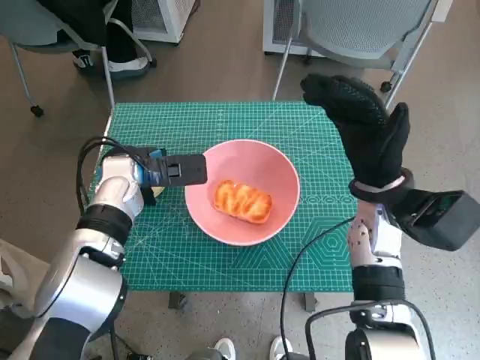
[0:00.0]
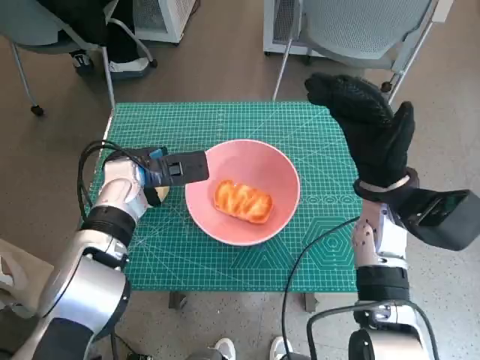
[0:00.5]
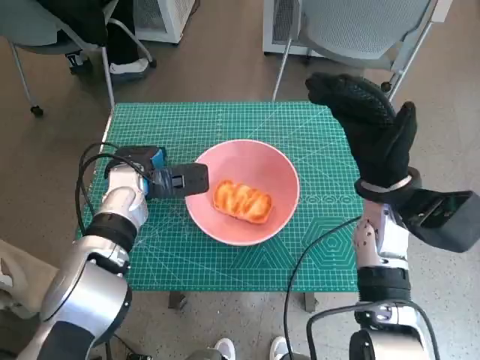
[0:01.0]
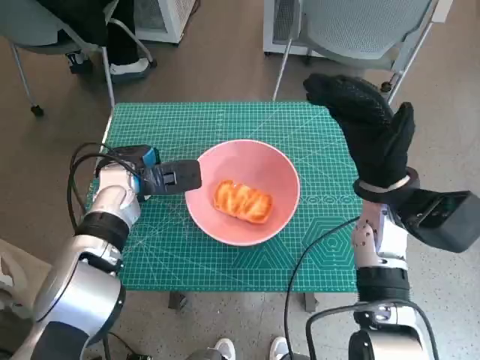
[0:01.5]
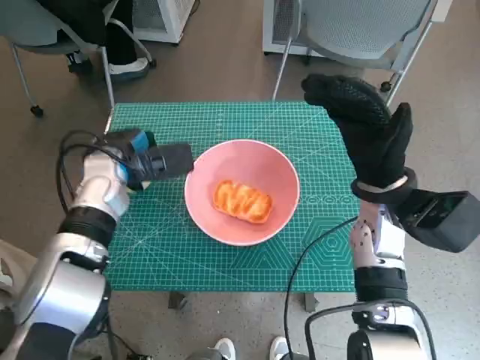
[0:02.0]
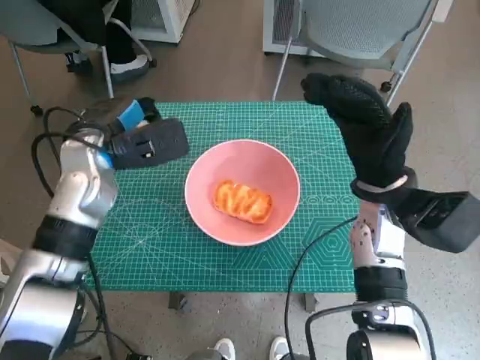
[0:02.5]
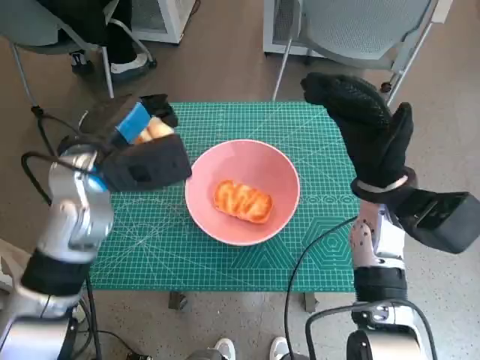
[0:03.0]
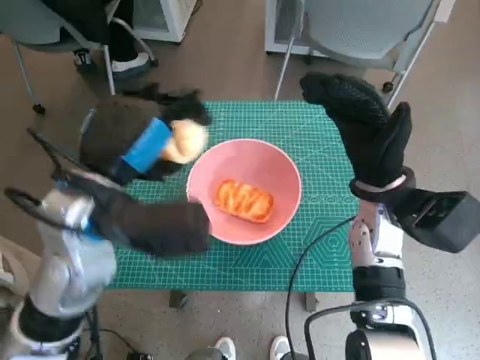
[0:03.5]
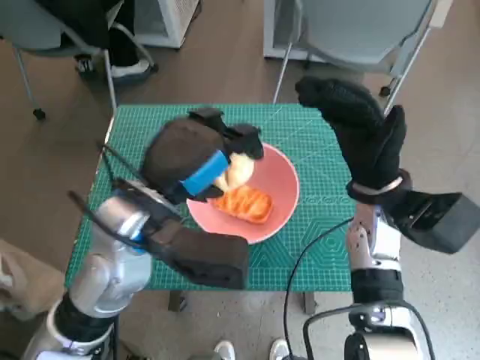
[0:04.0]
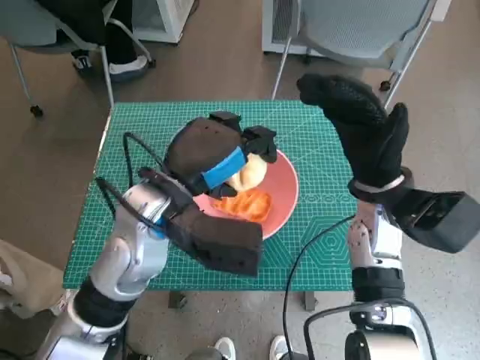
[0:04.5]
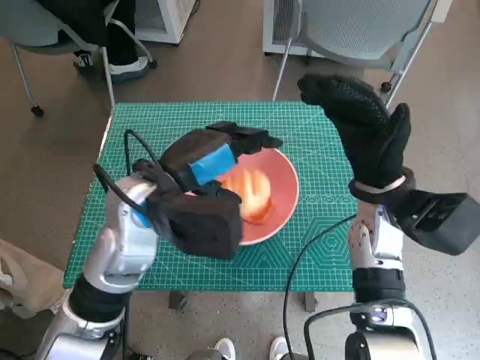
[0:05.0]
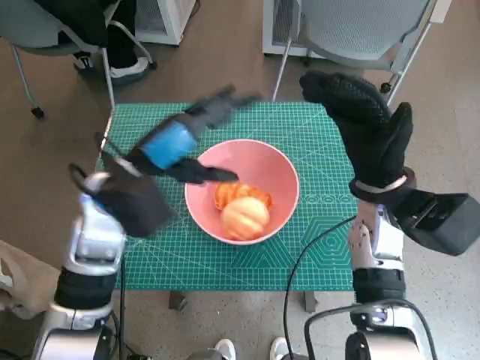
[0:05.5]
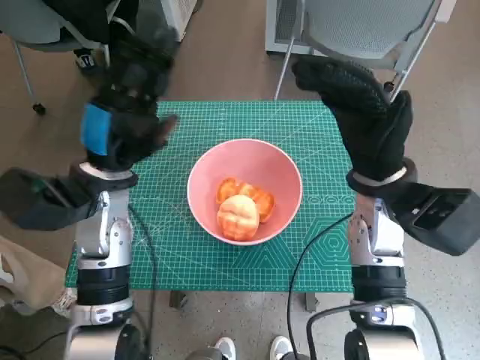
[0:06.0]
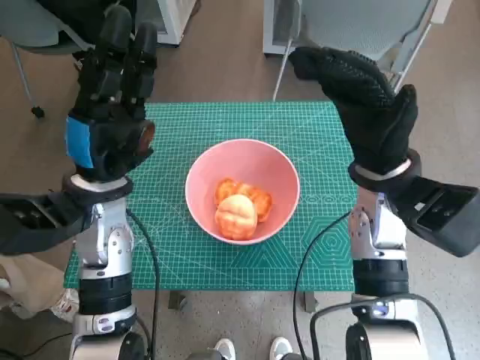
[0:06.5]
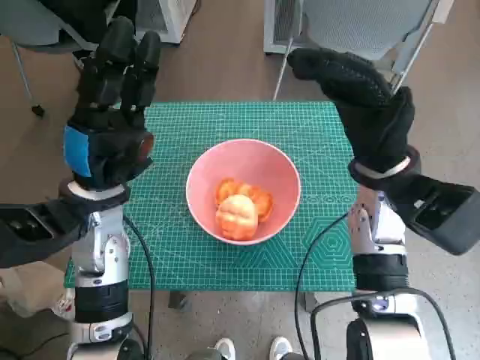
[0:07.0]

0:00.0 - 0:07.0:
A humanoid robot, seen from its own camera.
Step, 0:02.0 - 0:05.0: Place the round bread in pink bowl with left hand.
0:00.0 - 0:02.0: There are only small adjustments of the hands.
0:02.0 - 0:03.5: The left hand travels backward, upward and to the right by roughly 15 cm.
0:03.5 - 0:05.0: The left hand shifts by roughly 5 cm.
0:05.0 - 0:07.0: The left hand travels to the left by some 5 cm.

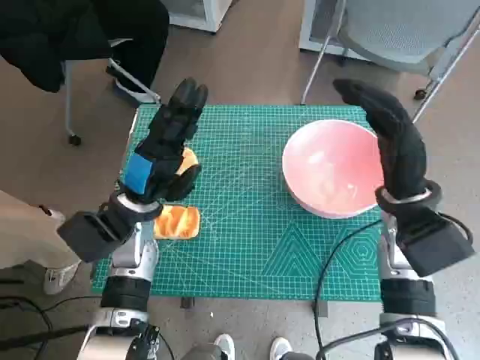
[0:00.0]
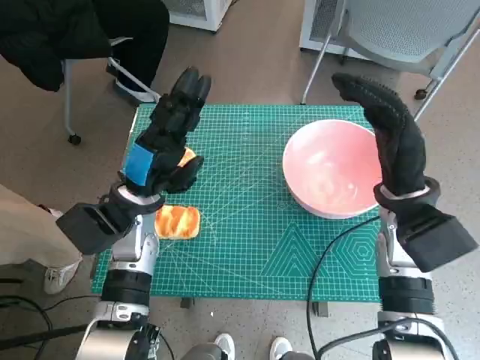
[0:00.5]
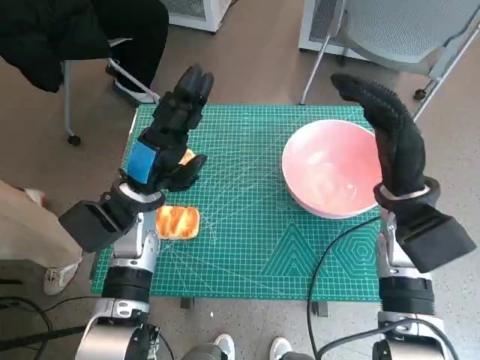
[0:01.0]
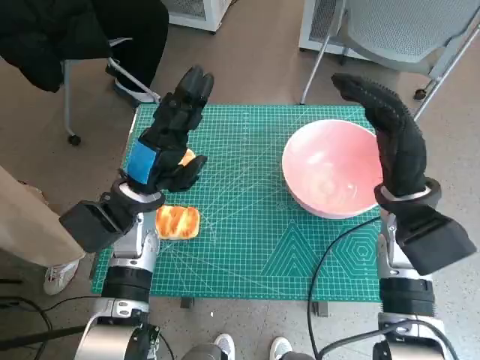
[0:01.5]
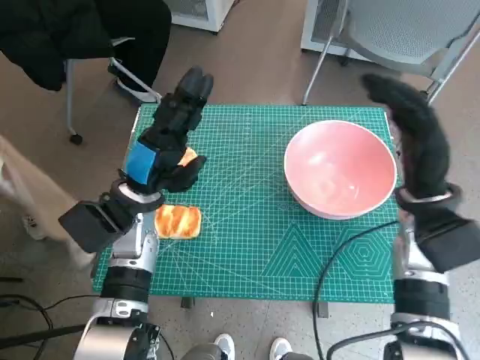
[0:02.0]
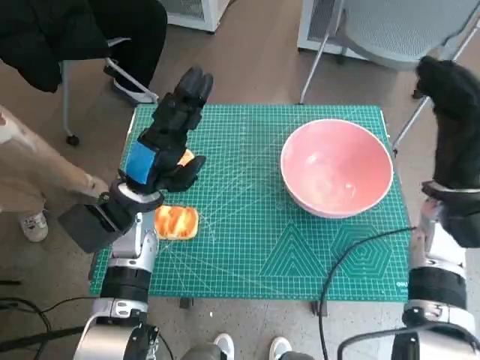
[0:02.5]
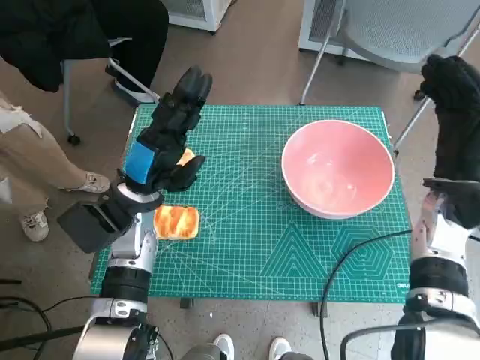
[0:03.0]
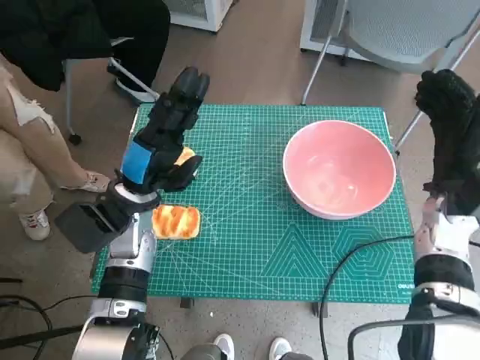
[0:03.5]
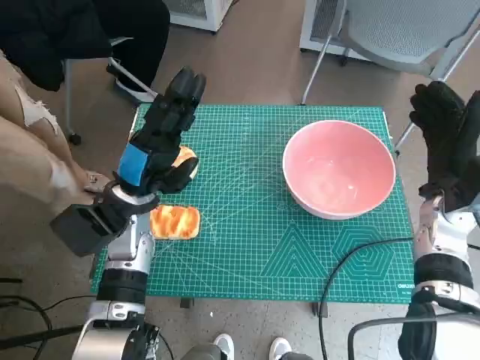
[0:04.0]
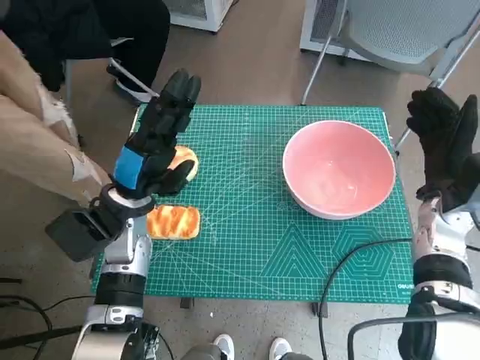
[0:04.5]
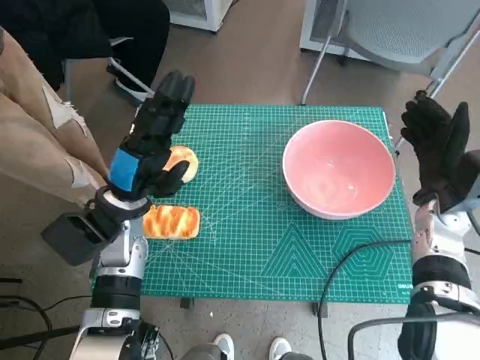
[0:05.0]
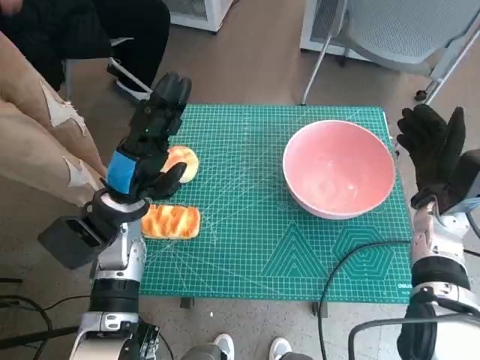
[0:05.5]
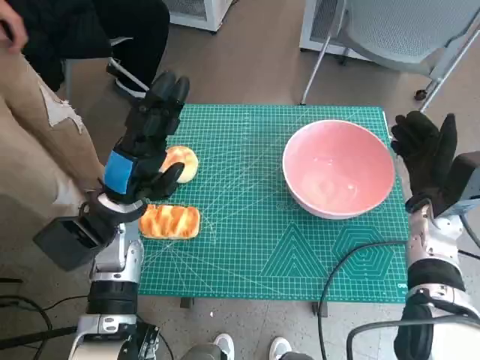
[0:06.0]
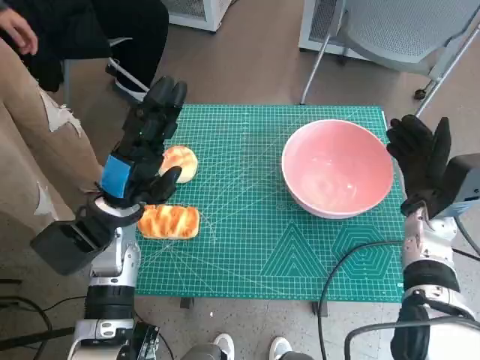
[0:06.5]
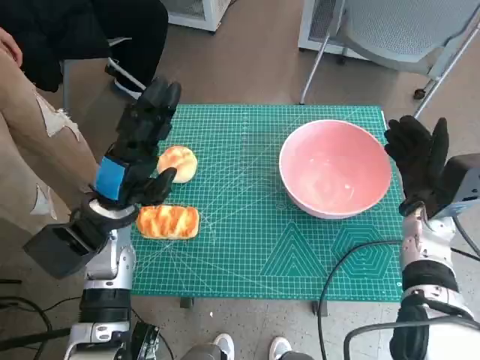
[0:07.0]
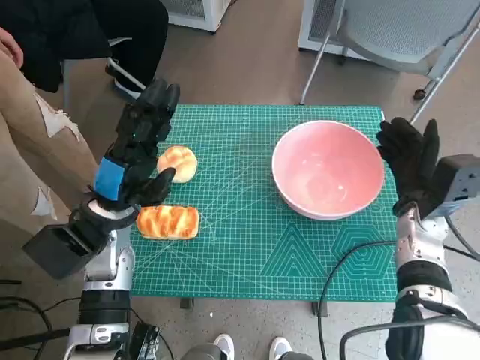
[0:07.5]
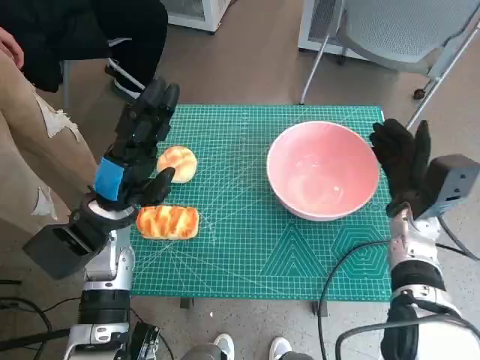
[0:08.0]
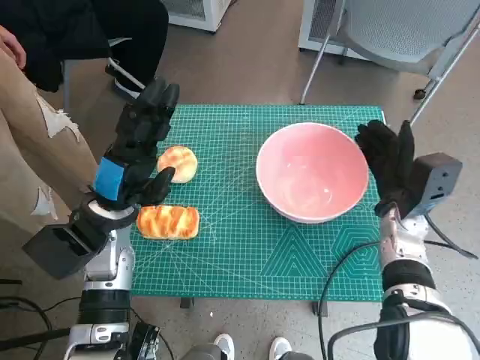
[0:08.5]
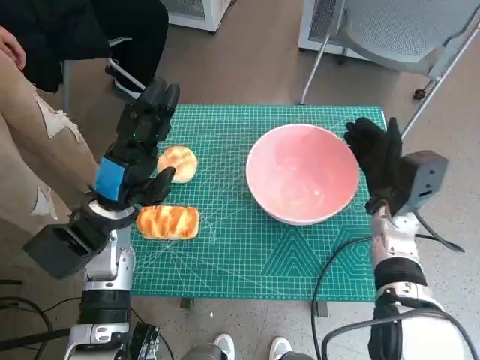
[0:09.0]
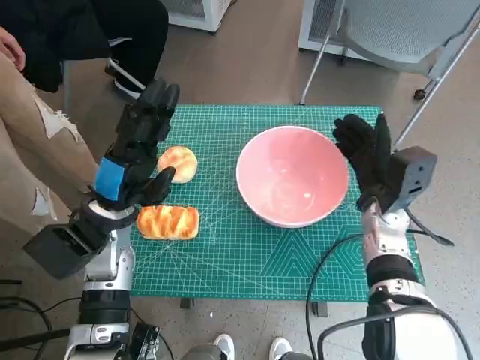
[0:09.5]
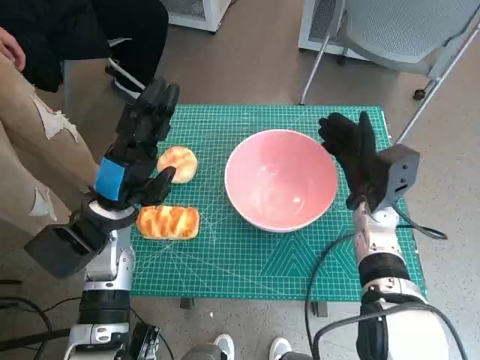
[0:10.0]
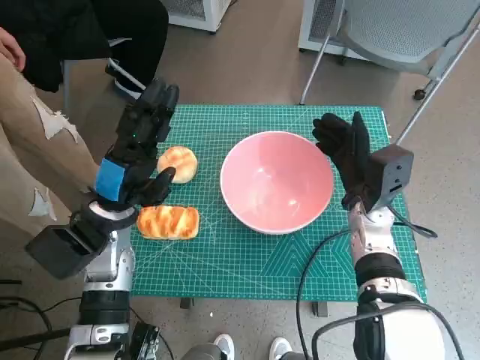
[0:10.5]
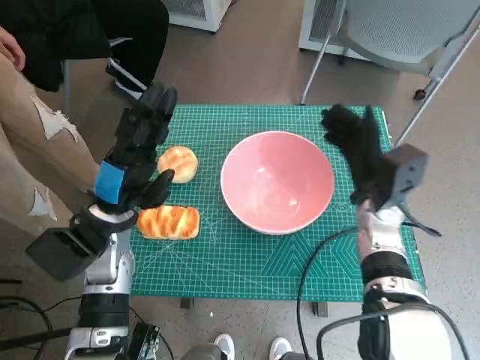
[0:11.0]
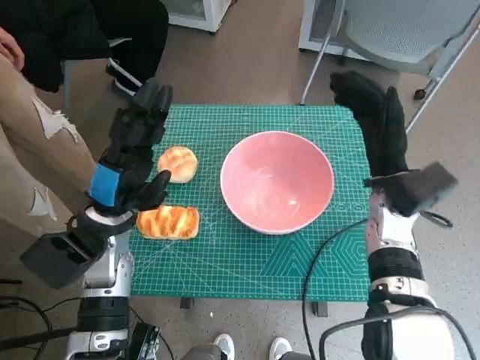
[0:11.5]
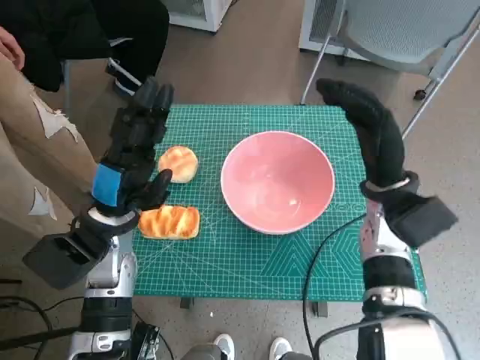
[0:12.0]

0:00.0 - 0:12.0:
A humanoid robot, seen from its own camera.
Step, 0:00.0 - 0:10.5: Move the pink bowl to the center of table with right hand.
0:02.0 - 0:04.0: The right hand moves to the right, roughly 5 cm.
0:08.0 - 0:10.0: The right hand moves to the left, about 5 cm.
0:10.0 - 0:12.0: The right hand shifts about 5 cm upward.

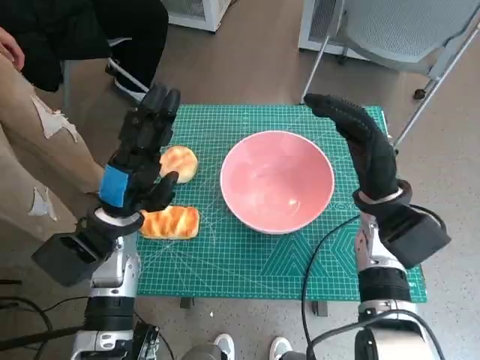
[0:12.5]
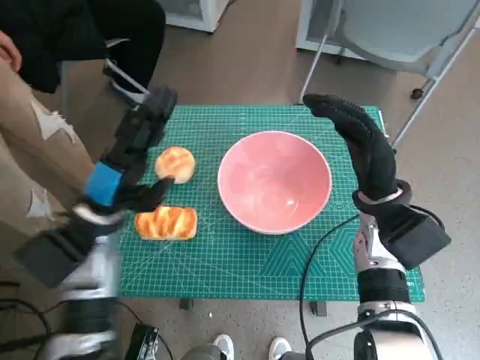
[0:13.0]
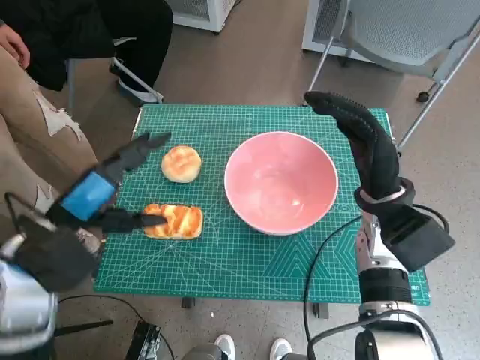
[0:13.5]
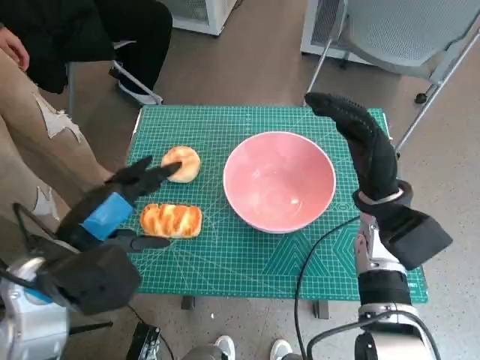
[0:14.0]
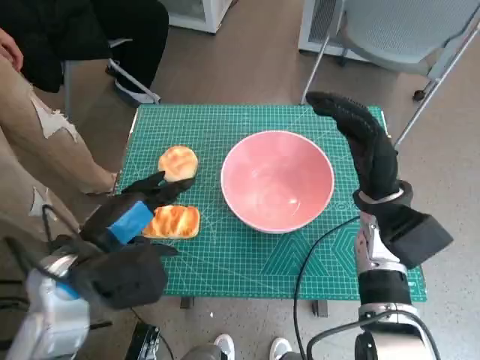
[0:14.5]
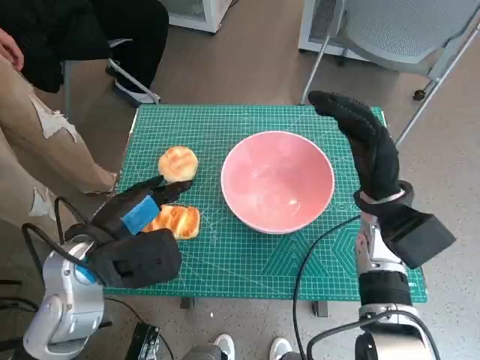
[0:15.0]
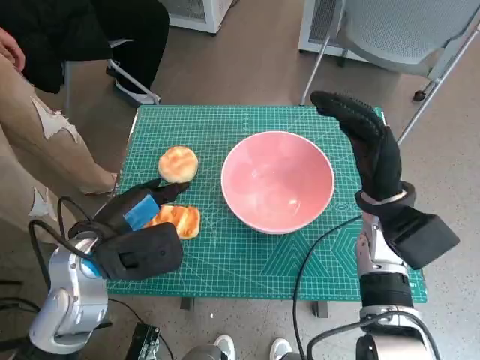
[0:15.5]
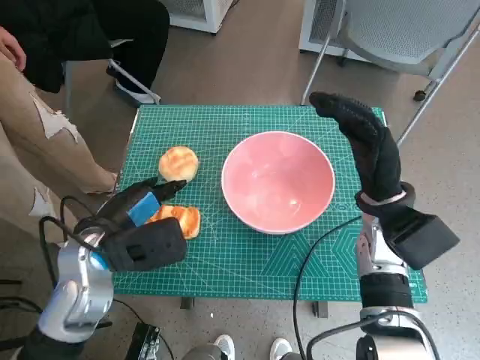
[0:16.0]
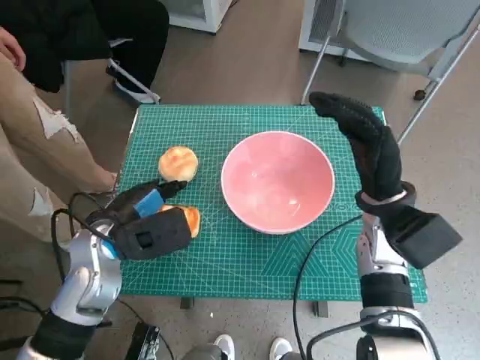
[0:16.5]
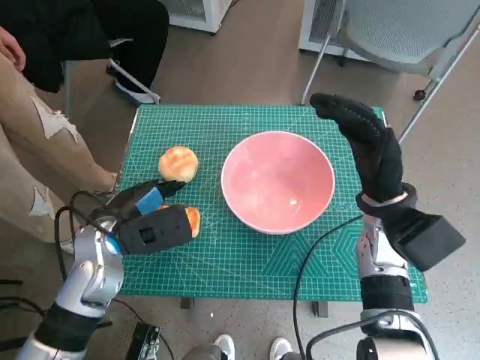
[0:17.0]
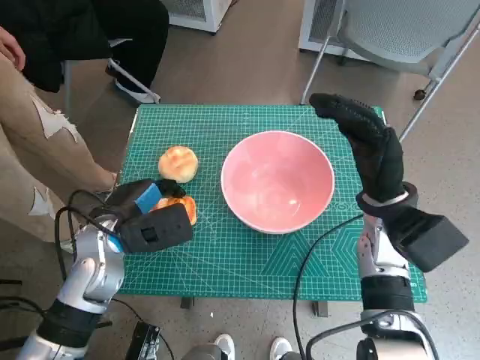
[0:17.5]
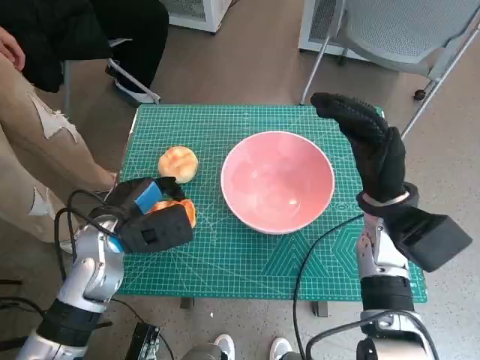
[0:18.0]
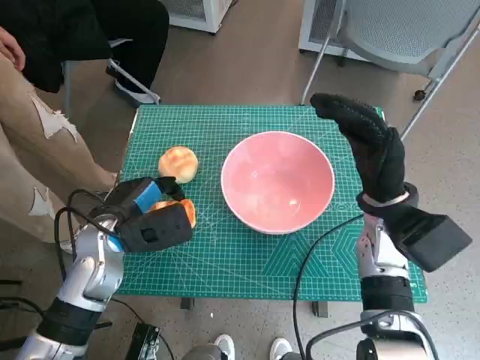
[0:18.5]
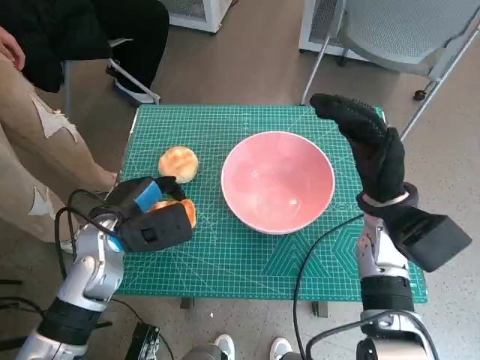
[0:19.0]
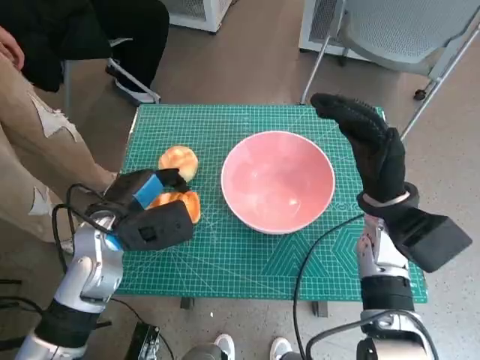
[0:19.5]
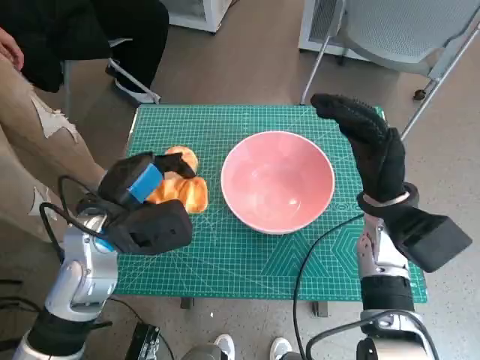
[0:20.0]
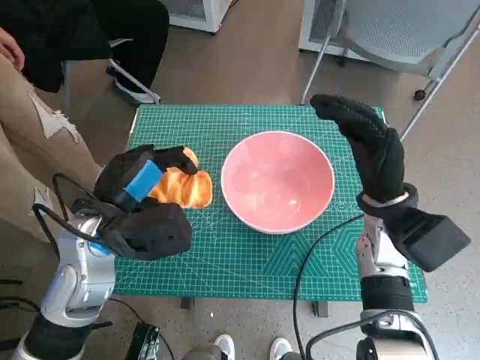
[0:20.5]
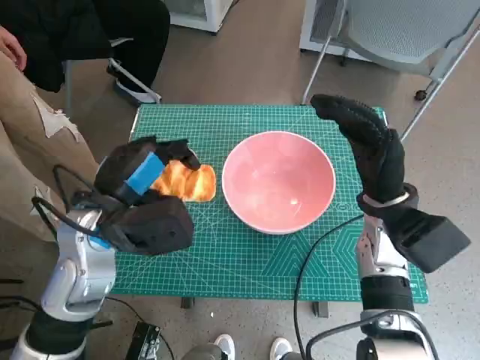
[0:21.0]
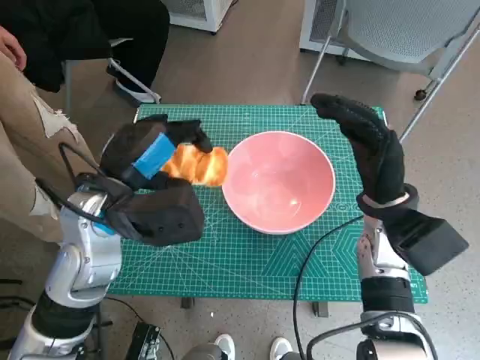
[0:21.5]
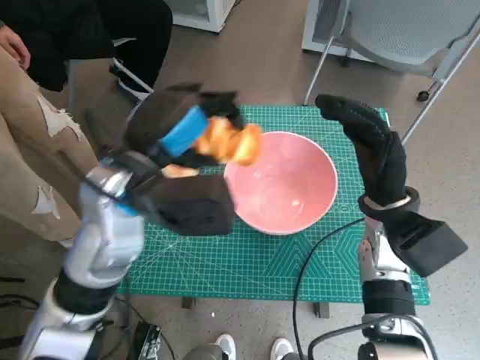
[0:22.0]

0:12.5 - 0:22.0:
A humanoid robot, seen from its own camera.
Step, 0:12.5 - 0:18.0: Grasp the long bread with left hand.
0:12.5 - 0:14.5: The left hand heads backward and upward, covering approximately 10 cm.
0:14.5 - 0:16.5: The left hand heads forward, covering approximately 5 cm.
0:16.5 - 0:18.0: The hands stay close to where they were, moving slightly.
0:18.0 - 0:20.0: The left hand changes place by roughly 5 cm.
0:20.0 - 0:22.0: The left hand moves upward and to the right, about 10 cm.
